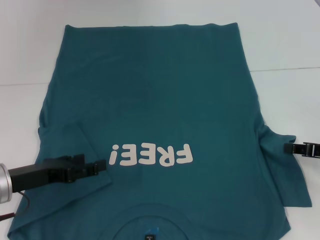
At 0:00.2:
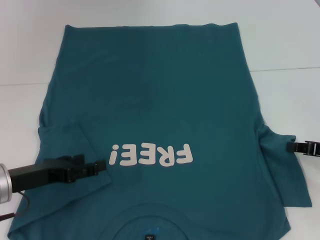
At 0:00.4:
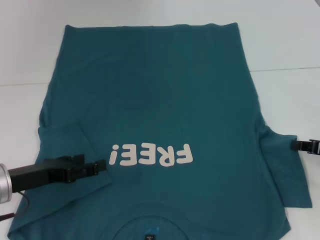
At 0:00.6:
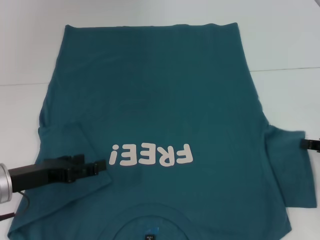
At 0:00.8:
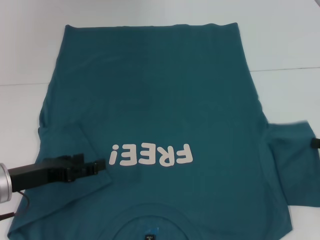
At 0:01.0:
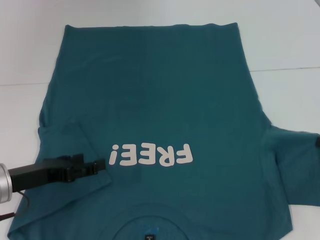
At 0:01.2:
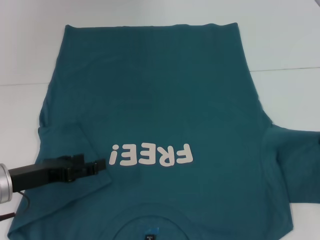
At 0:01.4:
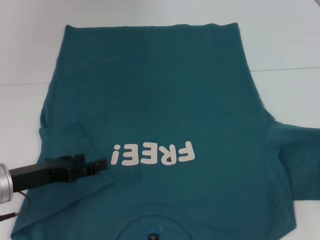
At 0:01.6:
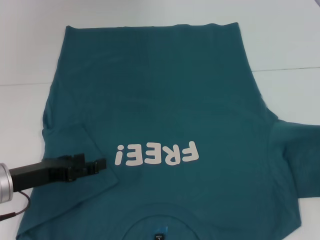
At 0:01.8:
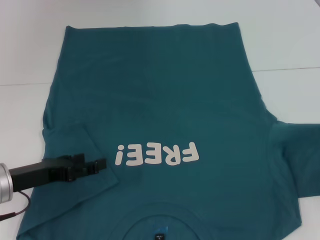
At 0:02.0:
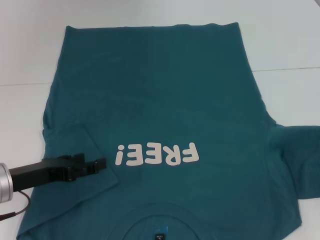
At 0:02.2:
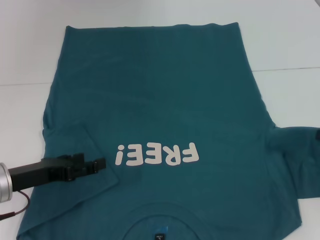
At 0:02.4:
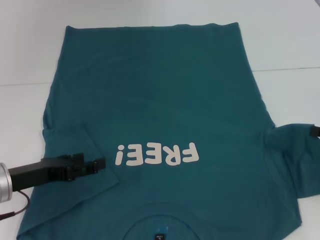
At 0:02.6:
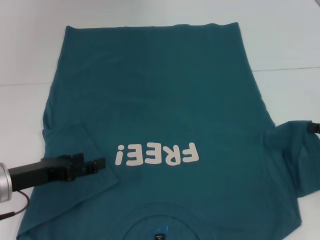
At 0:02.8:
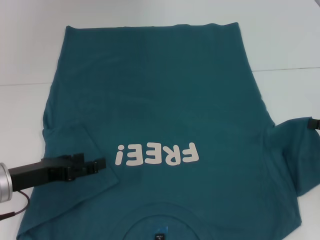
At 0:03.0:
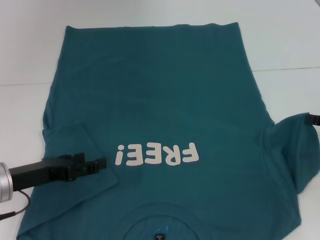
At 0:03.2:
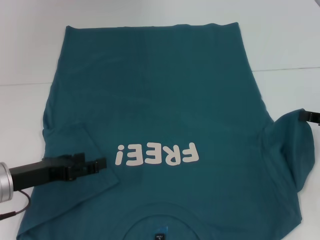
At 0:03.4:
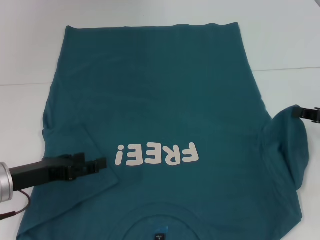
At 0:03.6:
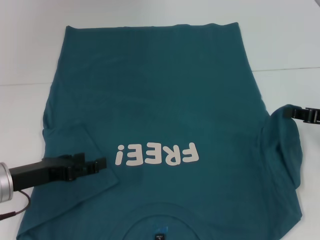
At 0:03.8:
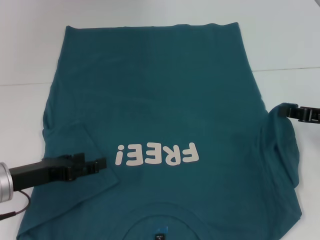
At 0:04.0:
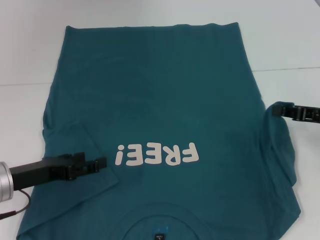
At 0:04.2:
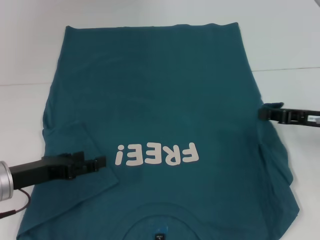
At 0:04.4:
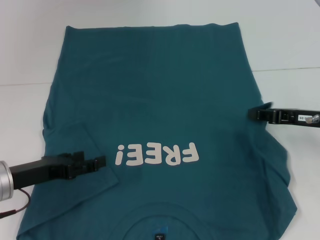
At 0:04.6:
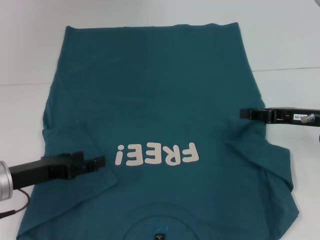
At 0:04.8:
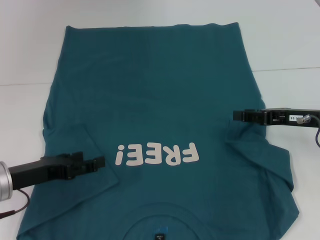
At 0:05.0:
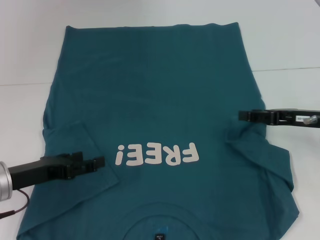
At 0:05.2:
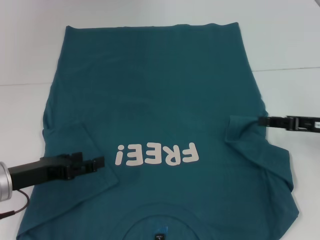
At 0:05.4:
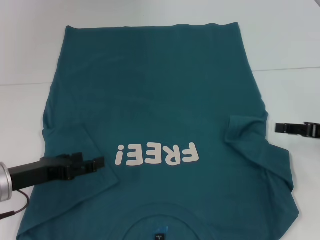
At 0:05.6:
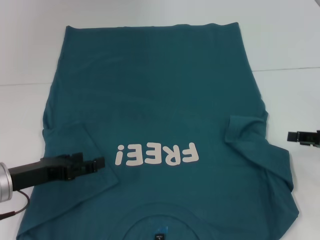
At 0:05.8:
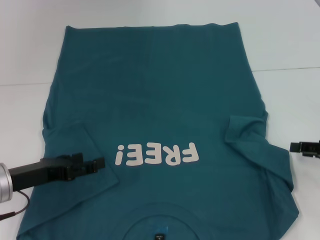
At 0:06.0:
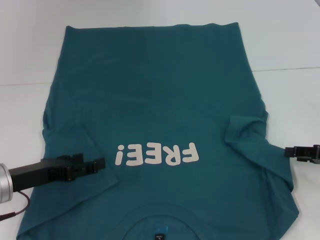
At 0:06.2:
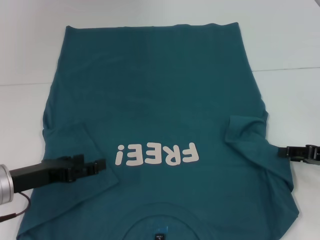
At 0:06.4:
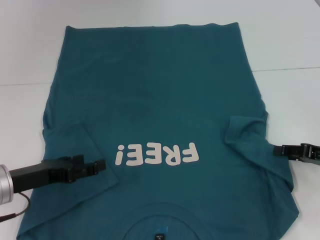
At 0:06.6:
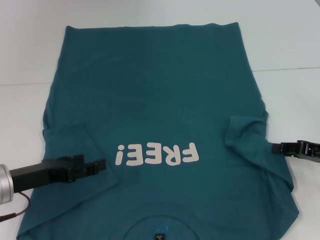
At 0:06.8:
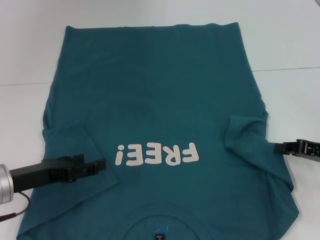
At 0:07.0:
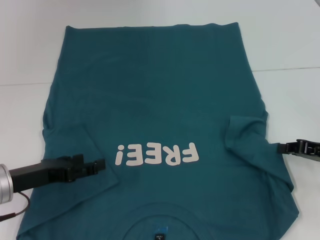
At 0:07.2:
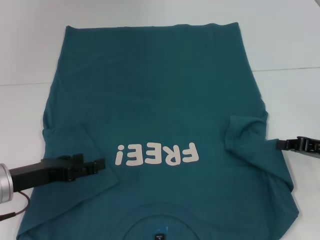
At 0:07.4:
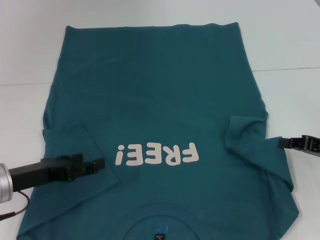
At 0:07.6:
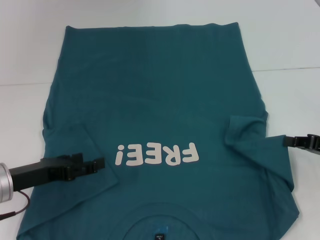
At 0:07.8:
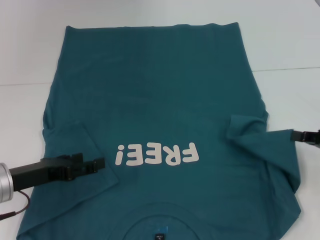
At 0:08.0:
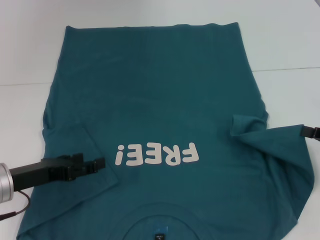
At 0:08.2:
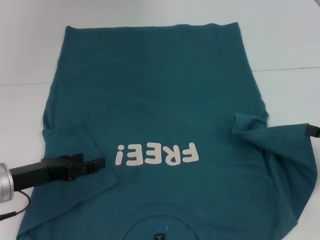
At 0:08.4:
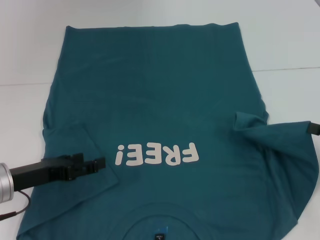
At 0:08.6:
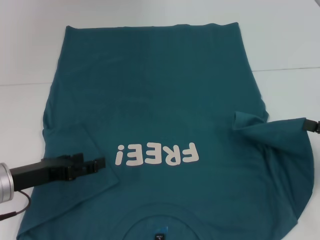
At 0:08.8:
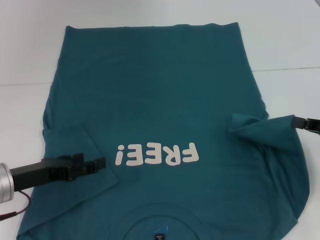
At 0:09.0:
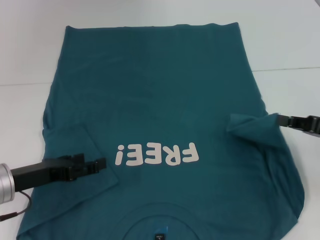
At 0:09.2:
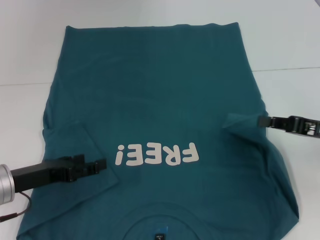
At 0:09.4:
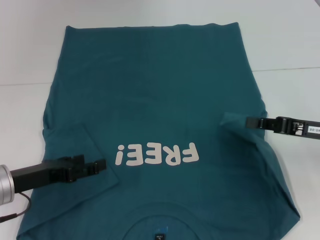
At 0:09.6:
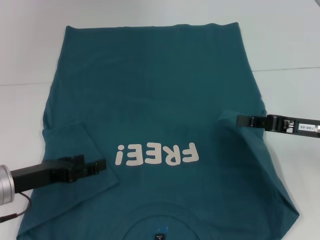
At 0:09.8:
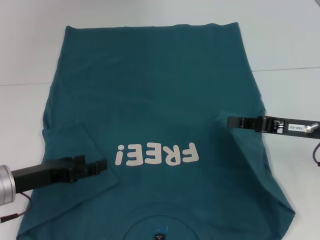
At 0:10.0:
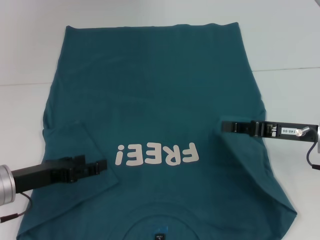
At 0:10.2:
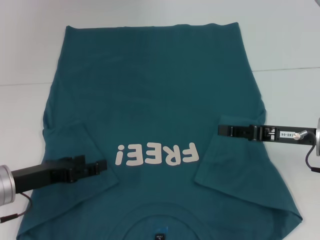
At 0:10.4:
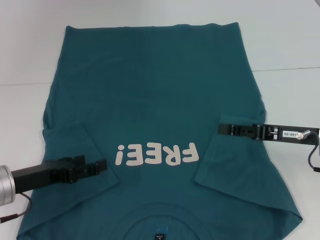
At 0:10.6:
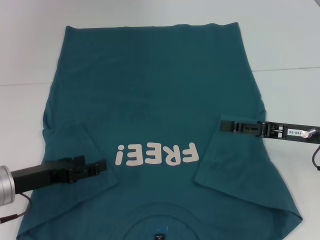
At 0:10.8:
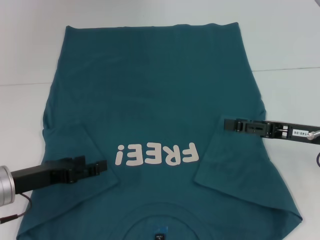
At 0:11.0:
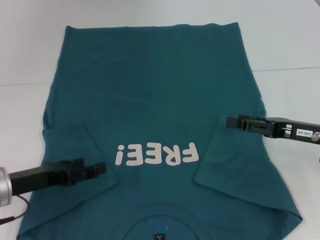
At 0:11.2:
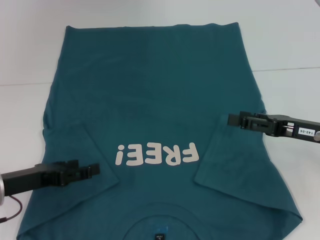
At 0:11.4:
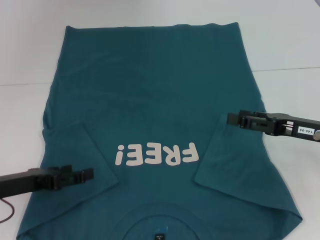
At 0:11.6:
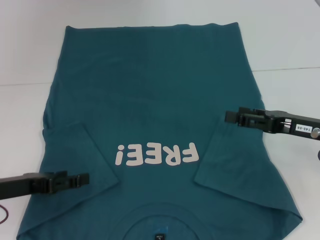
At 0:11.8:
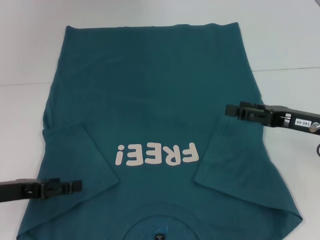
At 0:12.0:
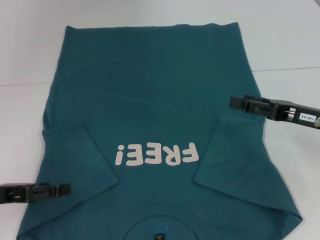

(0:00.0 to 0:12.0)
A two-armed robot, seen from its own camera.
Step, 0:00.0 - 0:10.2: Fold the bottom right sleeve to the right.
0:00.0 - 0:01.6: The right gripper goes some 5 cm to the right.
0:01.6 - 0:03.0: There are only small adjustments of the grippers.
0:03.0 - 0:04.4: The right gripper travels to the left by some 10 cm.
0:04.4 - 0:06.0: The right gripper is displaced to the right by about 5 cm, and opens.
0:06.0 - 0:07.6: The right gripper closes up.
0:07.6 - 0:09.0: The grippers move only a little.
0:09.0 - 0:10.4: The right gripper heads to the left, covering approximately 5 cm.
0:10.4 - 0:12.0: The right gripper opens its fingers; the left gripper is displaced to the left by some 5 cm.

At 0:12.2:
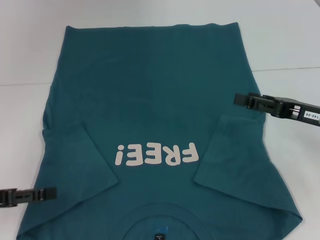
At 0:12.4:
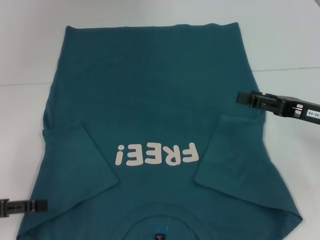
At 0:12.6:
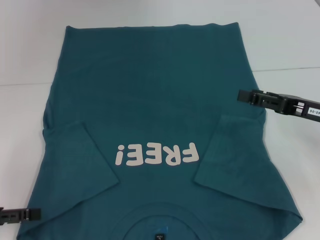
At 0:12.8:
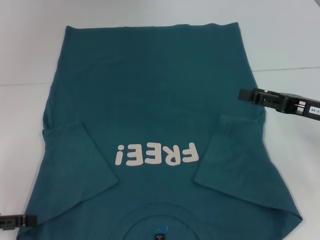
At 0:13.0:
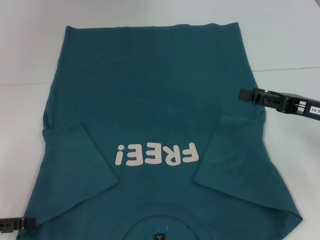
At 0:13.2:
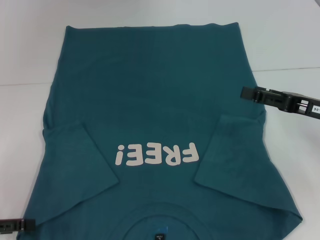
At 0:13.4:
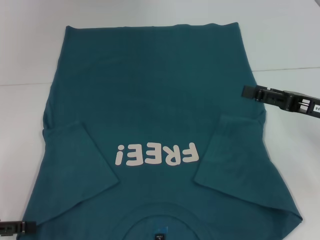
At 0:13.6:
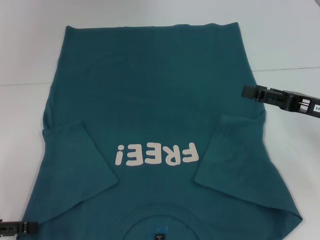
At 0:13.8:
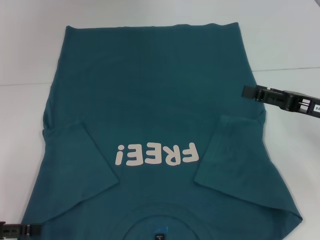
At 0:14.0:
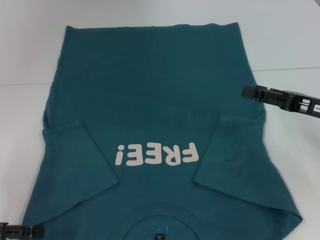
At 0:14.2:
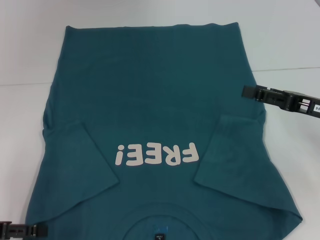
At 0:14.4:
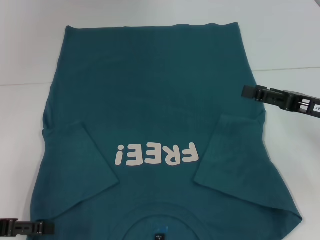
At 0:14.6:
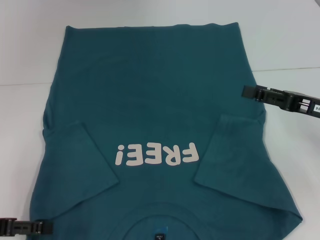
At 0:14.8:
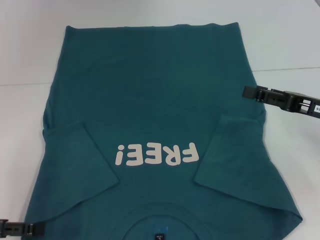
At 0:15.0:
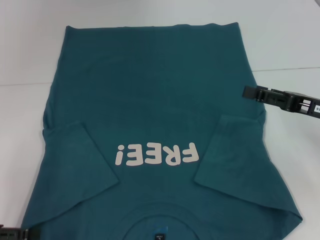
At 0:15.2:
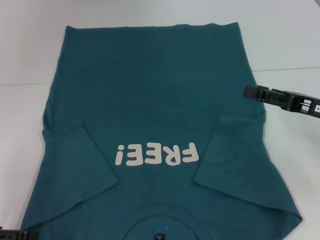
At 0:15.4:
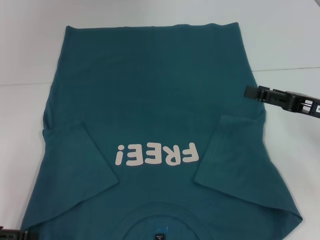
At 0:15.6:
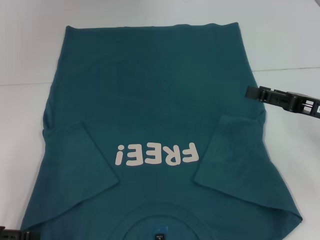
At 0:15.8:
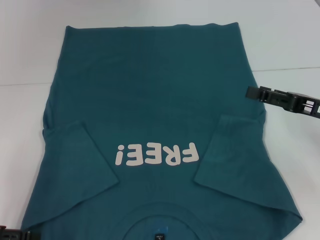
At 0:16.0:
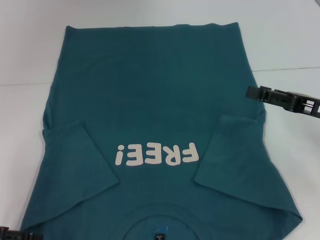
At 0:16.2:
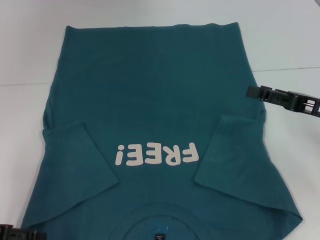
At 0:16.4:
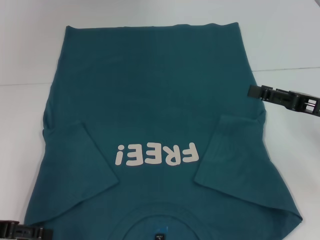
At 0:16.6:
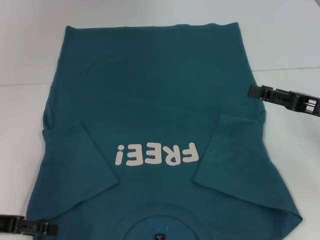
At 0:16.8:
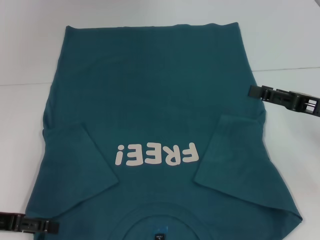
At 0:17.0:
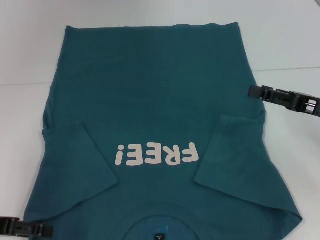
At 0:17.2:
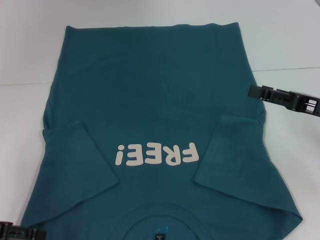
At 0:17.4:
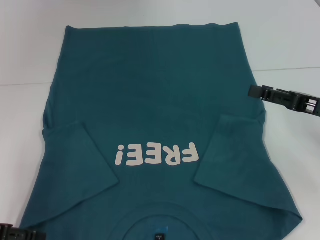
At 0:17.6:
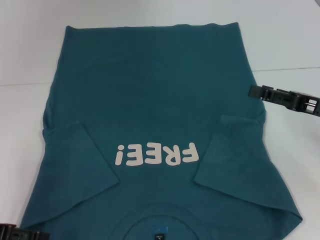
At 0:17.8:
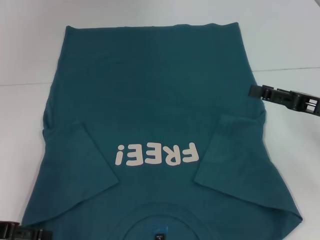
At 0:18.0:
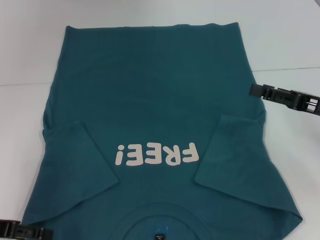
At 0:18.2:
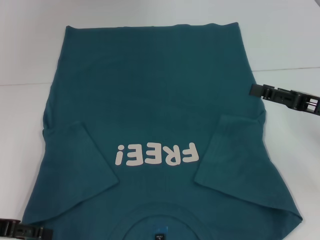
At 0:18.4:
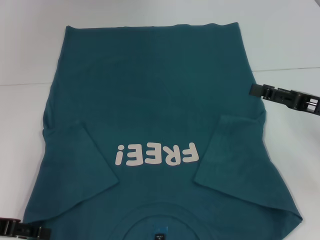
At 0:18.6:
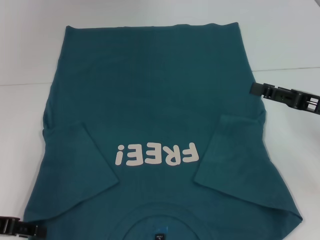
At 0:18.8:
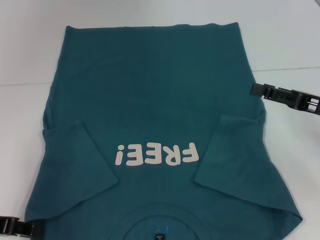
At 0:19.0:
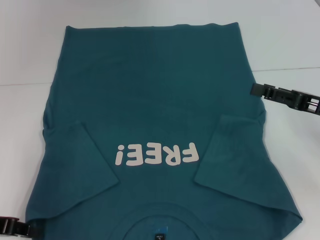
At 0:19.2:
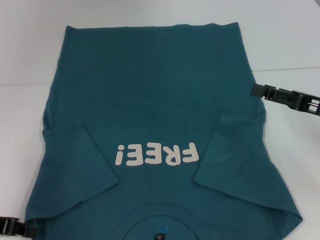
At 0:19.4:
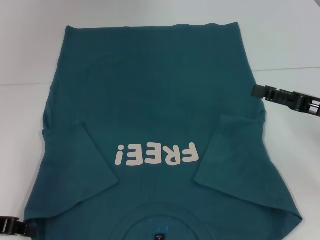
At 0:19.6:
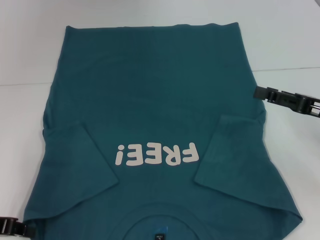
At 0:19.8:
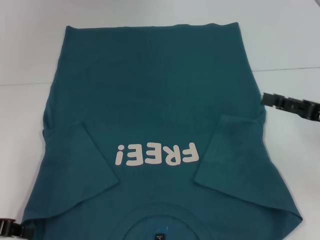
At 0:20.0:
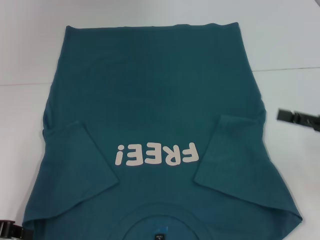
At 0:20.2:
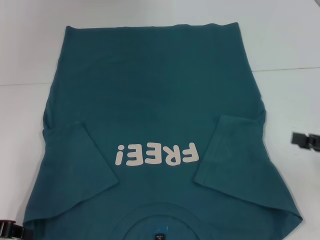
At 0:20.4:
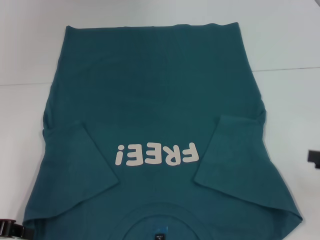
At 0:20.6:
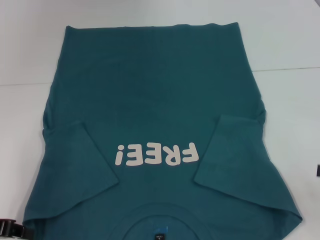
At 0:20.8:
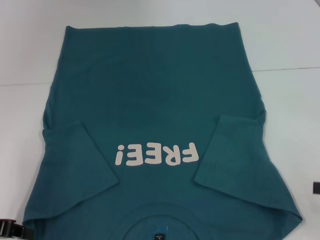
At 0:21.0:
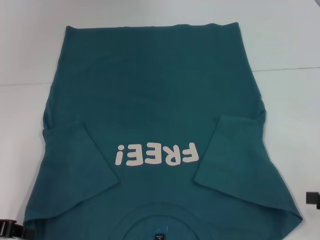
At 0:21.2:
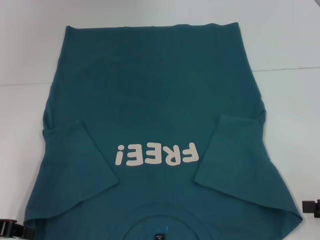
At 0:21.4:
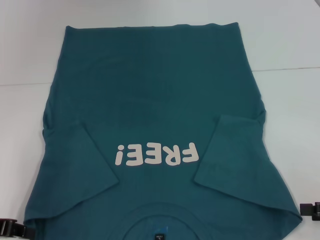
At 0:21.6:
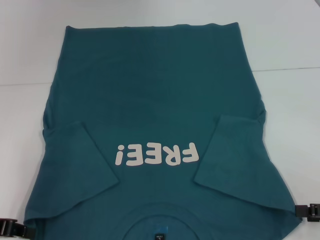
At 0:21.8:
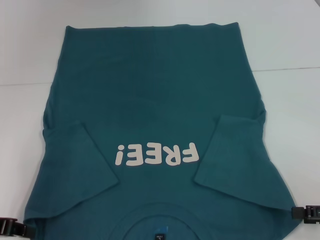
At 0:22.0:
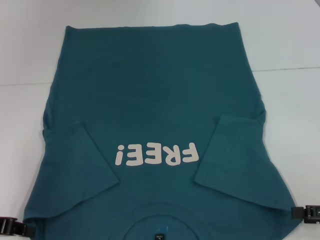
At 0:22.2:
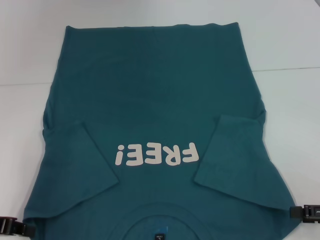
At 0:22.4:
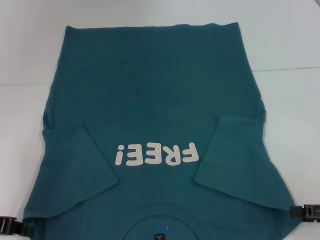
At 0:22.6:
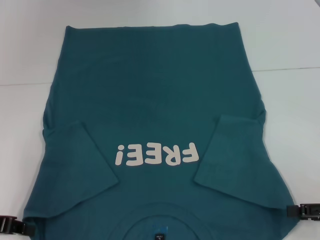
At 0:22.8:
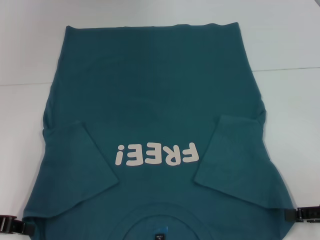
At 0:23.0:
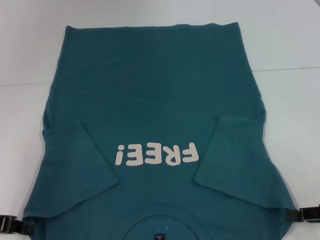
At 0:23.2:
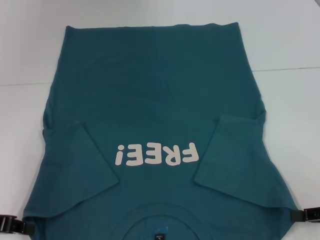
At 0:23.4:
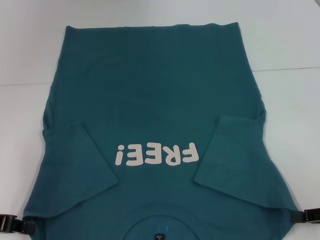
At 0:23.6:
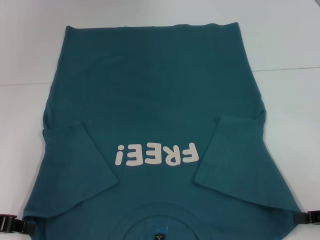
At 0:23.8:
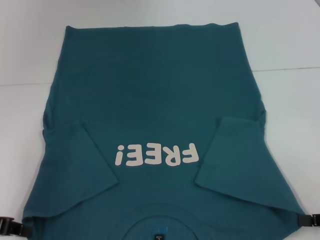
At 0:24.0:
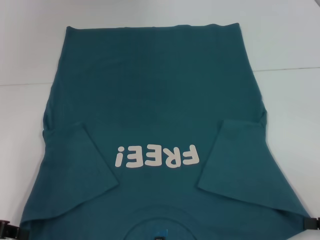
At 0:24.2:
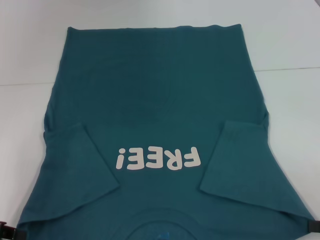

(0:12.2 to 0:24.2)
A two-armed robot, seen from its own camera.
Step, 0:12.2 - 0:19.8: Grab the bottom left corner with your left hand.
Step, 0:20.0 - 0:23.2: Grab the bottom right corner with your right hand.
0:12.2 - 0:13.8: There are only small adjustments of the grippers.
0:15.2 - 0:18.2: The grippers move only a little.
0:19.8 - 0:21.2: The right gripper travels backward and to the right by approximately 10 cm.
0:21.2 - 0:22.6: The grippers move only a little.
0:22.6 - 0:24.2: The right gripper closes up.
